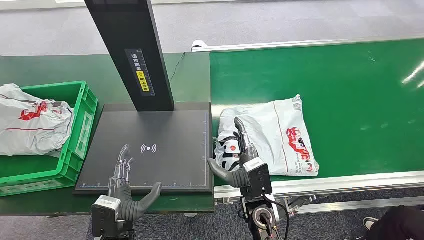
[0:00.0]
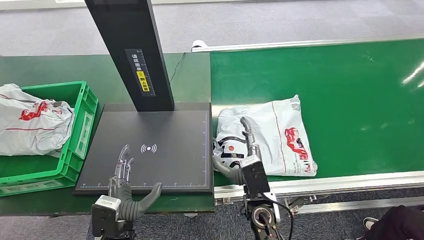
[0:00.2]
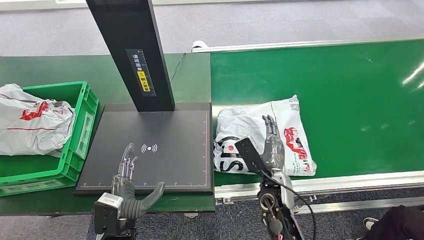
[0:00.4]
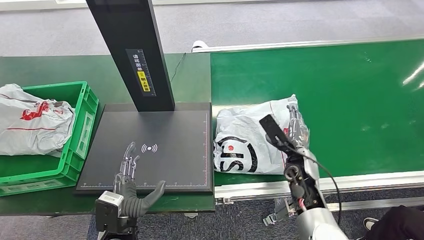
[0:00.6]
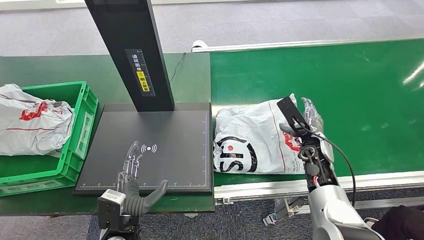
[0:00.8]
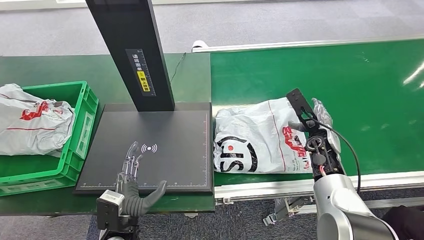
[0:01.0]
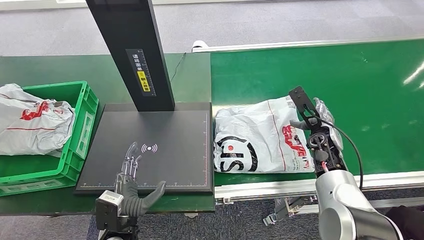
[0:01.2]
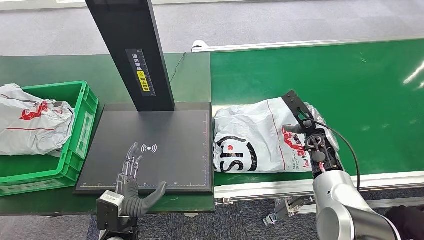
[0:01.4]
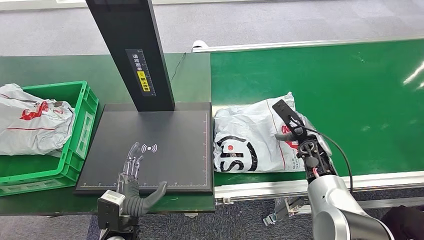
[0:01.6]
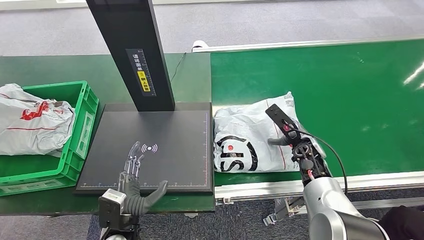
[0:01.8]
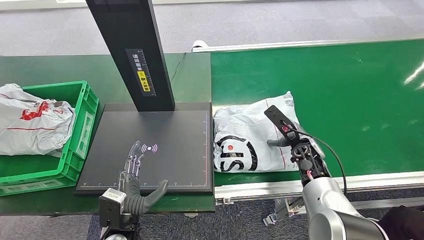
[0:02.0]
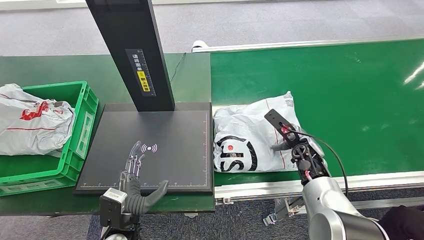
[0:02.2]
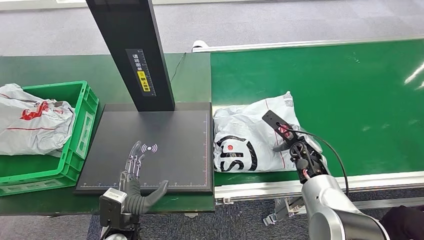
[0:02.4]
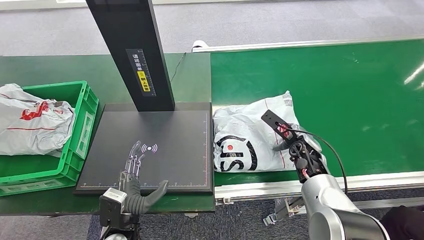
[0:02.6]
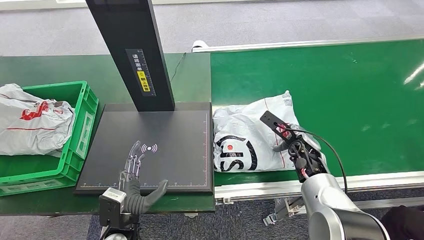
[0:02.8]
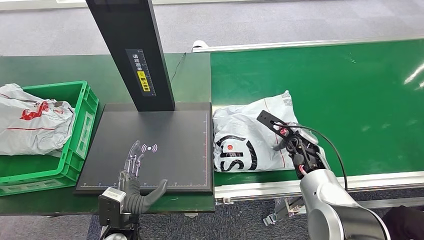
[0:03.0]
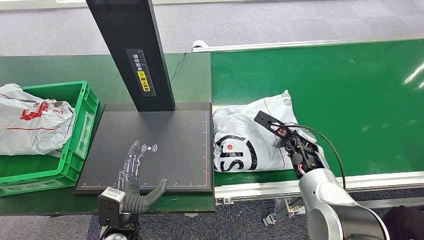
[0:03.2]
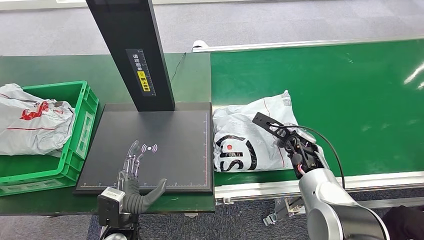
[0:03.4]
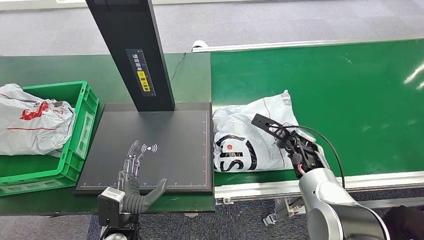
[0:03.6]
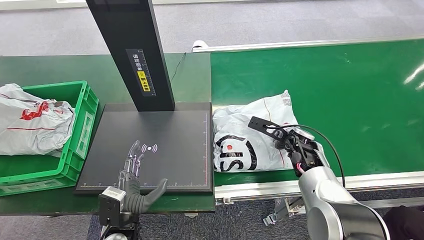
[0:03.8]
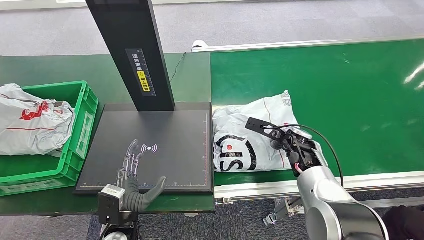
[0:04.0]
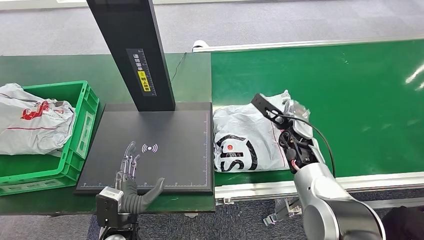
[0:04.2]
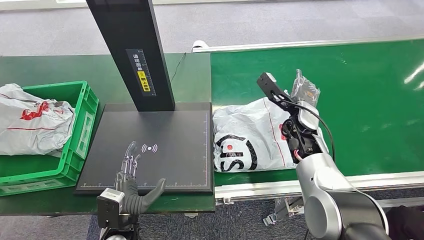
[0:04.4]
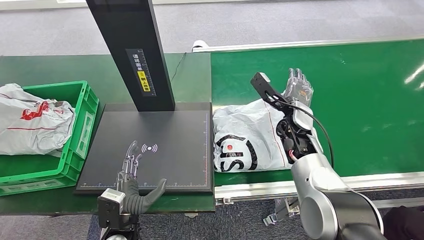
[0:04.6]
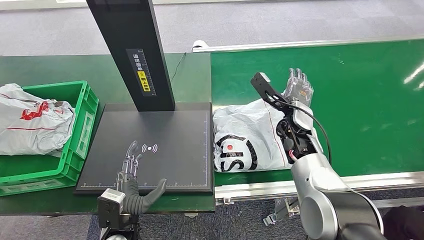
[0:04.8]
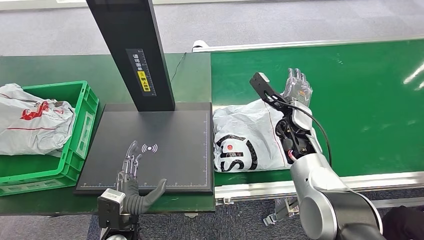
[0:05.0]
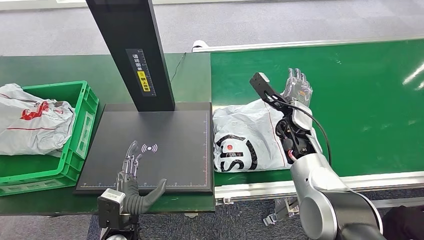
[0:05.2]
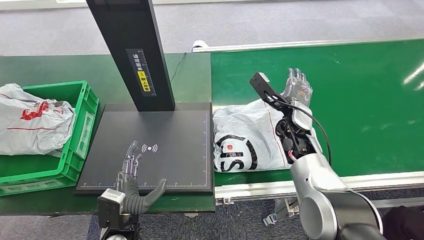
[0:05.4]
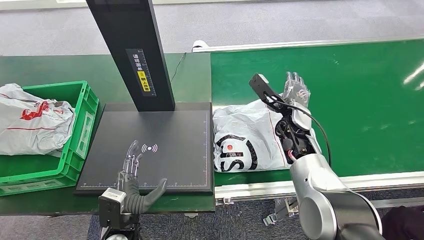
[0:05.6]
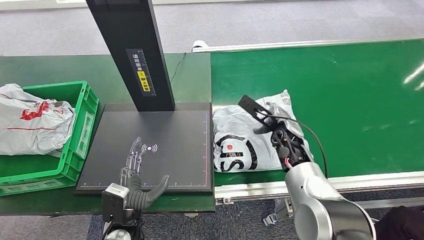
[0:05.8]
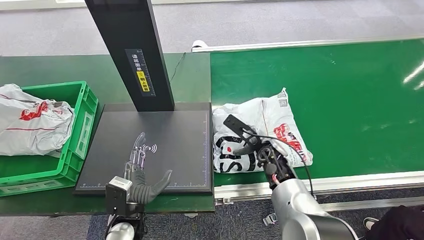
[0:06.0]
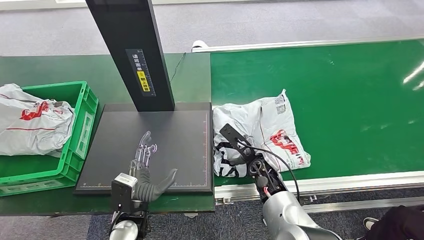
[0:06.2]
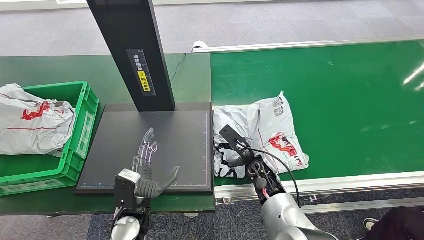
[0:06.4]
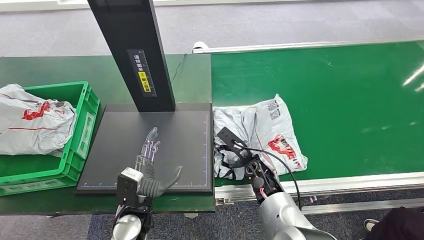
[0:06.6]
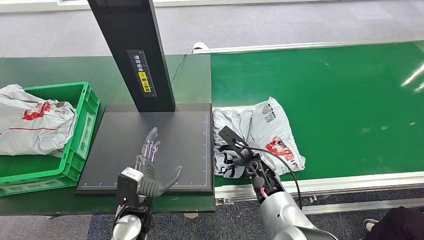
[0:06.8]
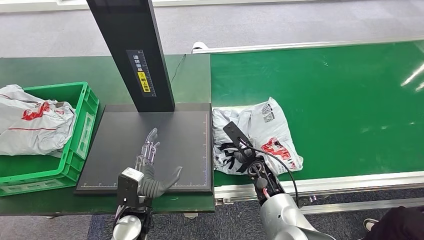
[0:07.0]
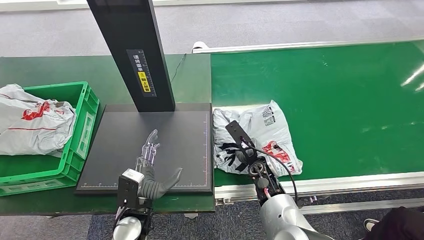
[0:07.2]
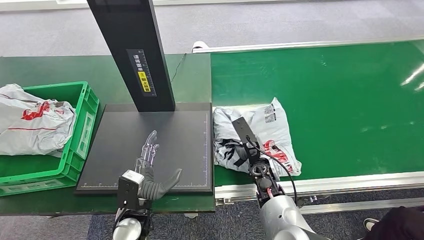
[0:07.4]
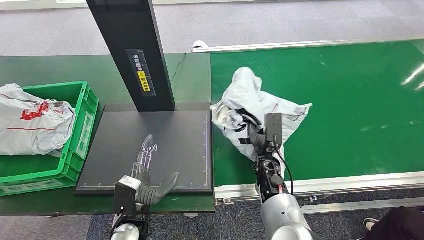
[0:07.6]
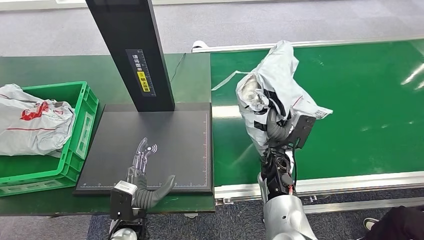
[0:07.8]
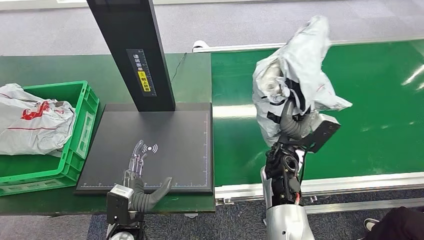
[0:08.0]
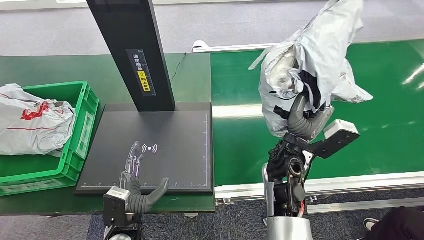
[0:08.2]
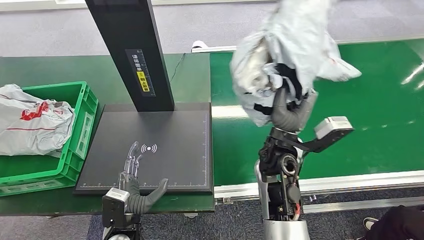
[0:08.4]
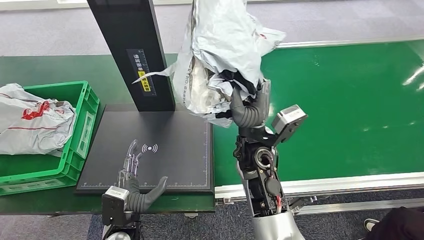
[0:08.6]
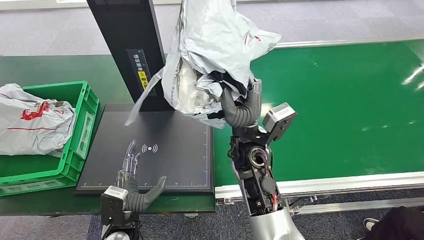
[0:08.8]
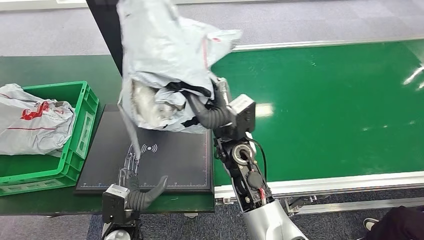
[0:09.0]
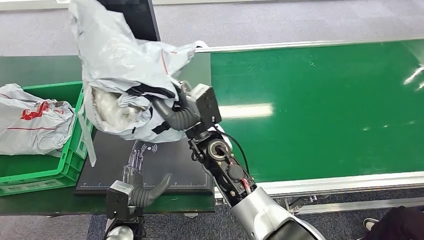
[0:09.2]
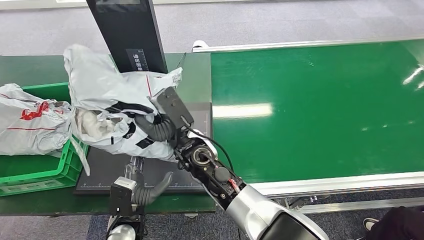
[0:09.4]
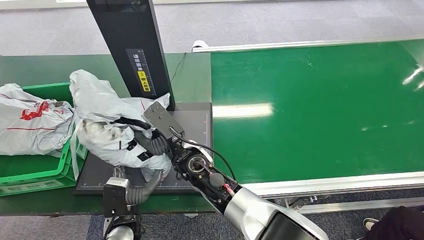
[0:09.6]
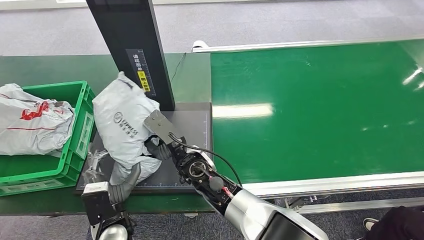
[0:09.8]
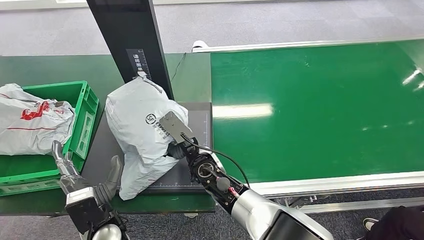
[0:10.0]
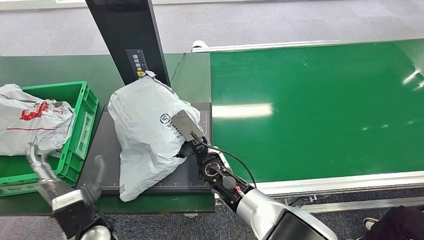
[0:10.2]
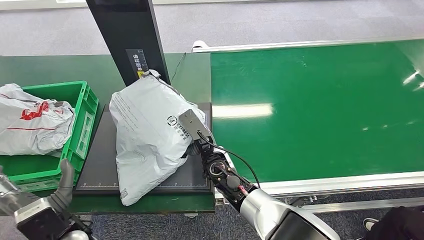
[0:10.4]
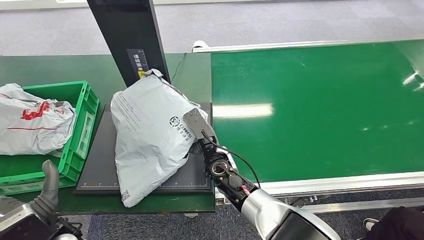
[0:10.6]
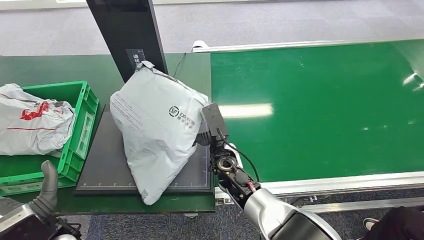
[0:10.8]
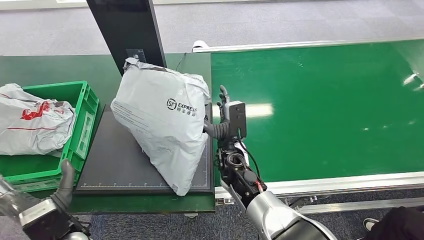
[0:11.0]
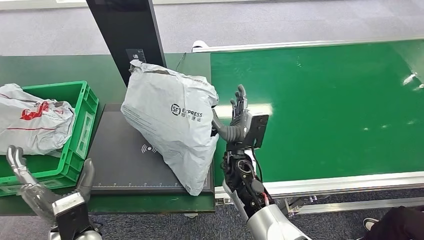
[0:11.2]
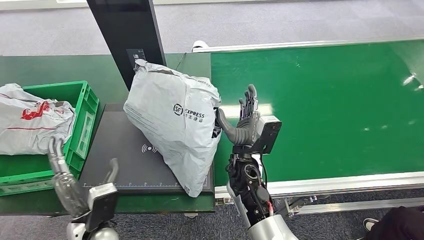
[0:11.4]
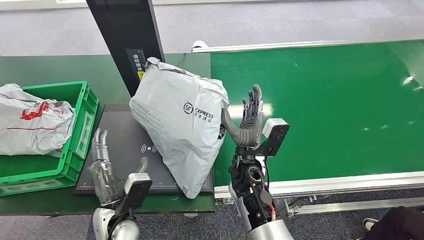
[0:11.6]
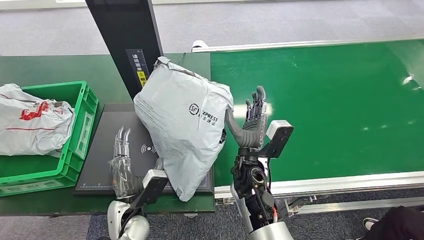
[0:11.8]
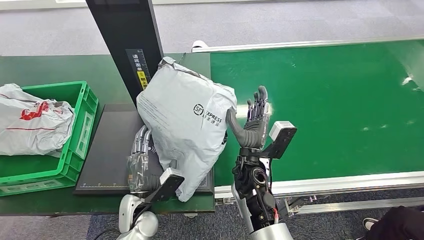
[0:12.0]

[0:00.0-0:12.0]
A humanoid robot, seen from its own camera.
Step, 0:00.0 to 0:08.0: Pick up the package from the conveyor belt.
Step, 0:08.4 to 0:11.6: Place the package onto the inbound machine.
0:03.0 to 0:04.4: The right hand heads upward, covering some 5 cm.
0:04.4 to 0:06.0: The right hand shifts approximately 15 cm to the left, downward and backward.
0:06.0 to 0:07.6: The right hand moves some 5 cm.

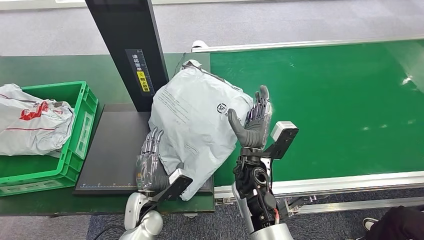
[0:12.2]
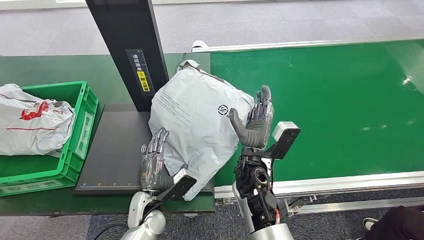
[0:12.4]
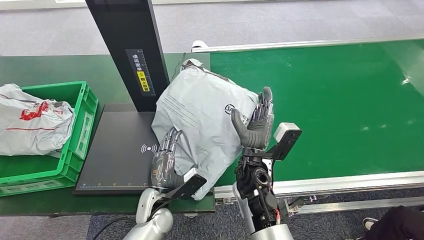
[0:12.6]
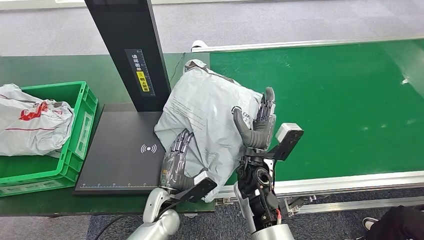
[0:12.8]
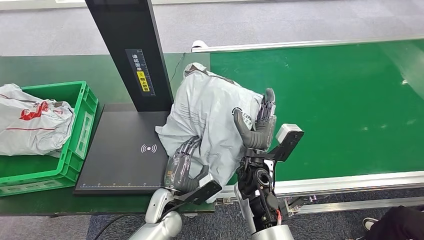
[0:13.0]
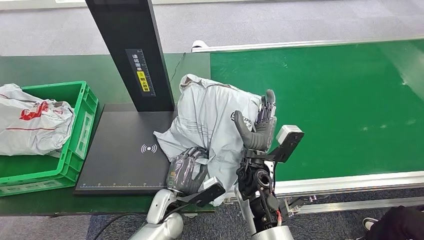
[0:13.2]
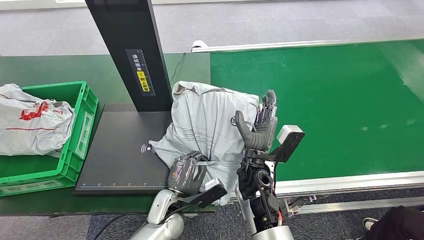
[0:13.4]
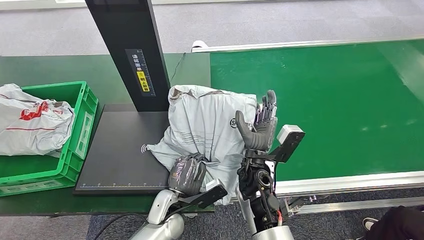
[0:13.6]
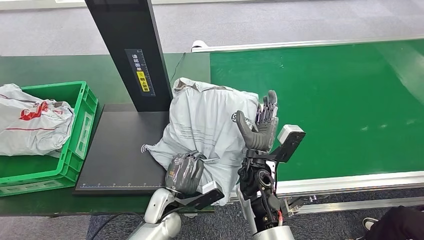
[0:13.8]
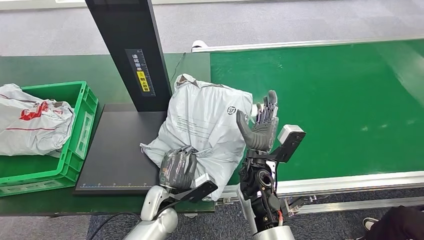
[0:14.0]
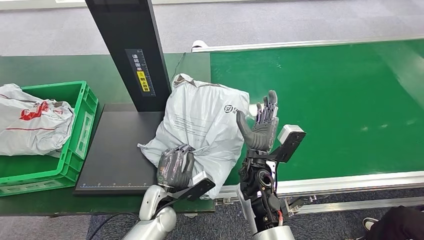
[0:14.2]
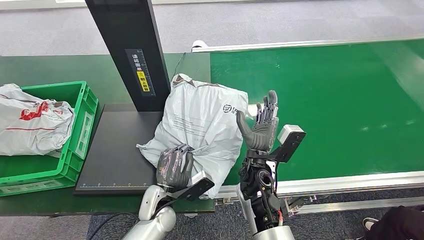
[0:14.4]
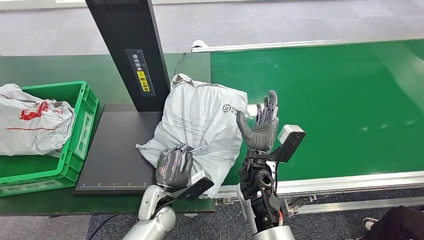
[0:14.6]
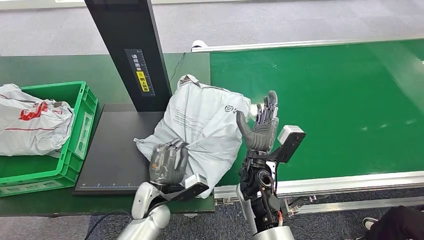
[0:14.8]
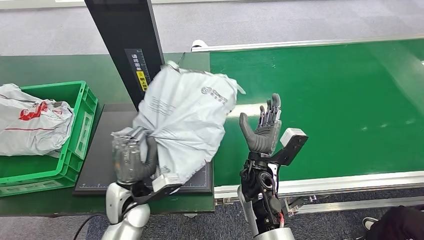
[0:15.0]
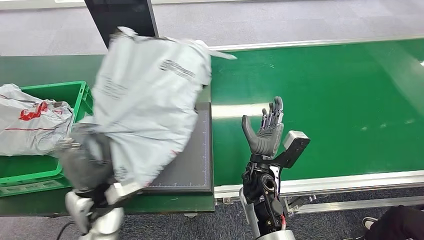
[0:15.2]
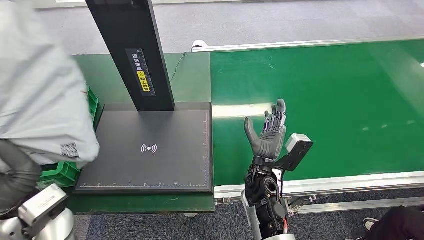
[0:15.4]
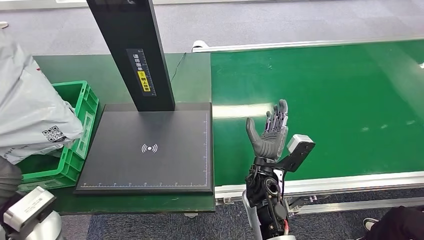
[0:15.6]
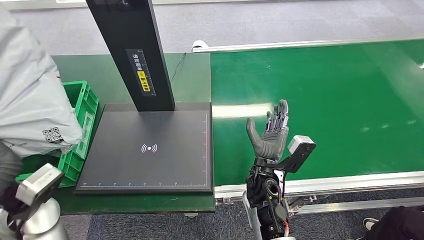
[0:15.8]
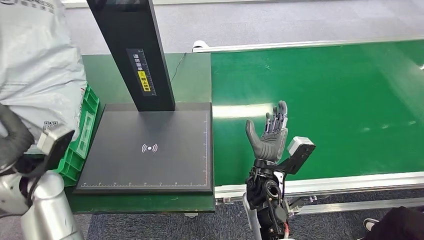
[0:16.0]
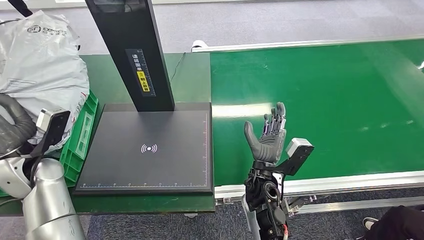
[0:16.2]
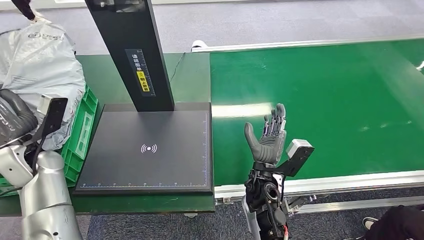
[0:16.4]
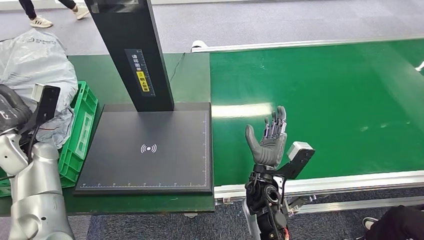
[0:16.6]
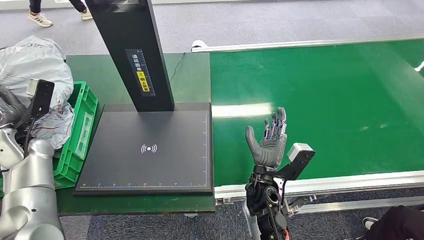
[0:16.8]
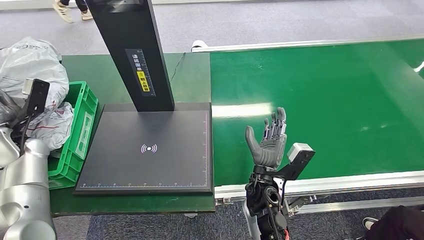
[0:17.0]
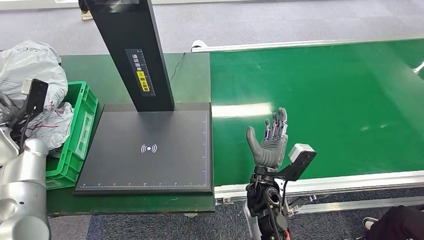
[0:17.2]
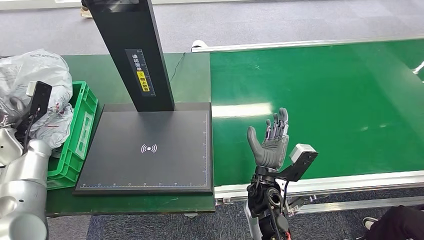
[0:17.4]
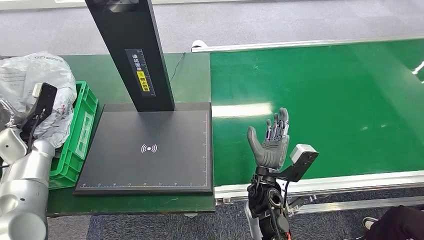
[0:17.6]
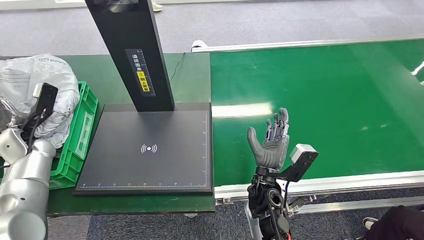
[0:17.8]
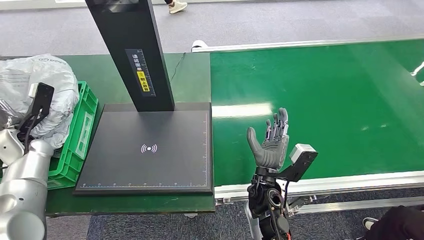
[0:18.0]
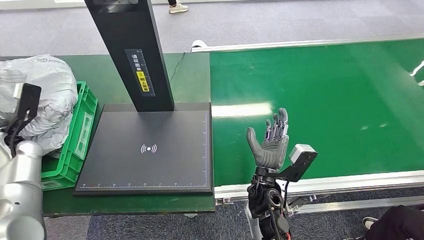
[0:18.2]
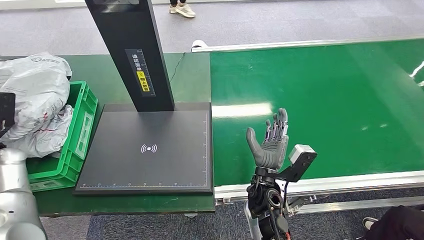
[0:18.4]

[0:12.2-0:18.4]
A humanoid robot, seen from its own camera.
Step, 0:12.2 to 0:15.6: Pick up the package from the inbound machine.
0:15.4 to 0:16.8: The left hand travels forward and to the left by about 20 cm.
0:16.8 to 0:18.4: The left hand shifts some 5 cm to the left.
